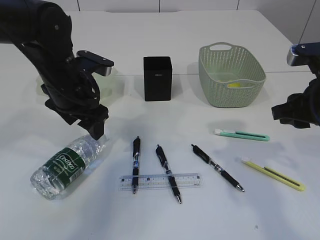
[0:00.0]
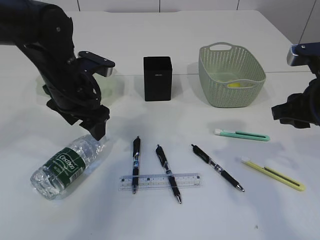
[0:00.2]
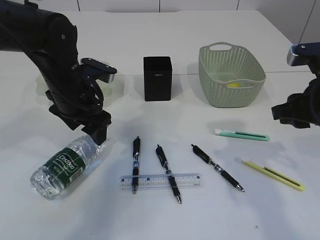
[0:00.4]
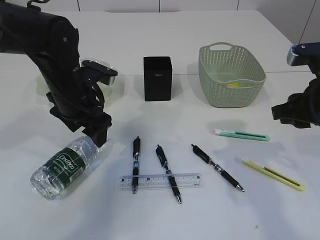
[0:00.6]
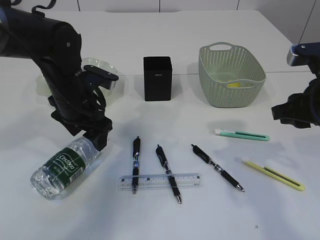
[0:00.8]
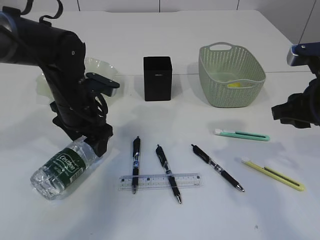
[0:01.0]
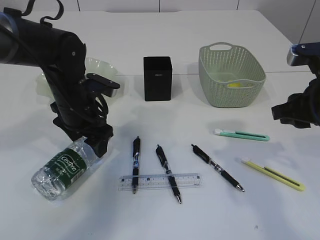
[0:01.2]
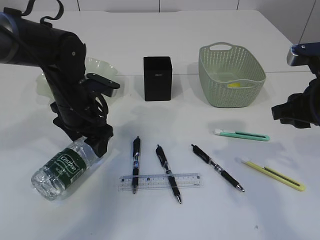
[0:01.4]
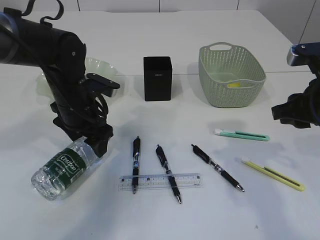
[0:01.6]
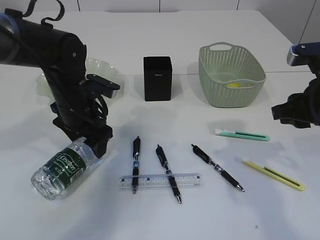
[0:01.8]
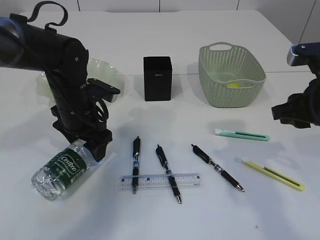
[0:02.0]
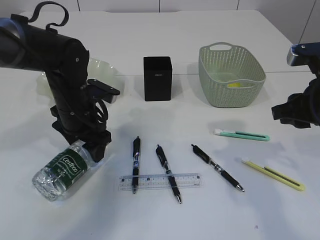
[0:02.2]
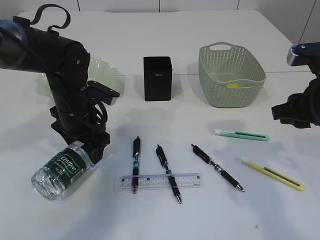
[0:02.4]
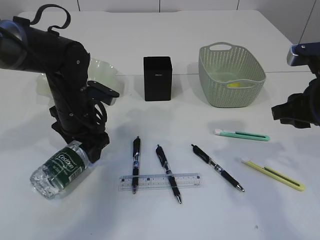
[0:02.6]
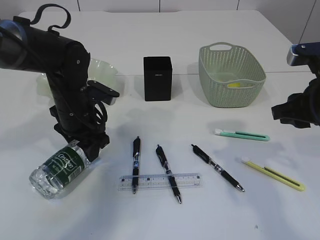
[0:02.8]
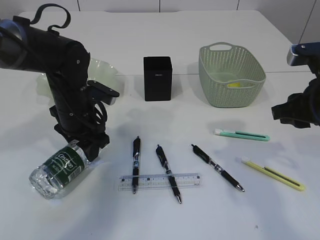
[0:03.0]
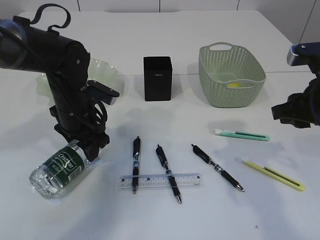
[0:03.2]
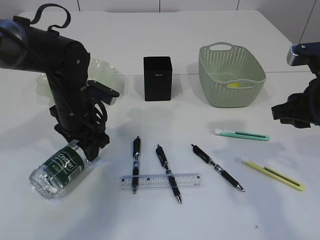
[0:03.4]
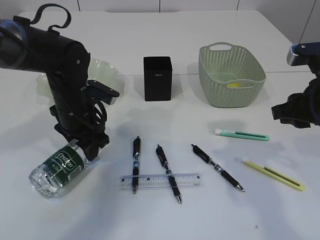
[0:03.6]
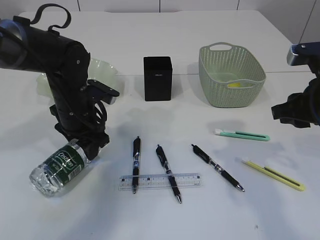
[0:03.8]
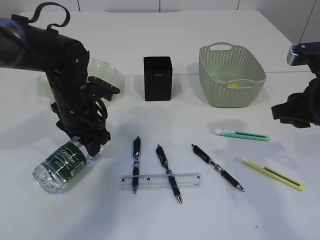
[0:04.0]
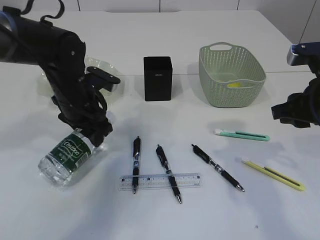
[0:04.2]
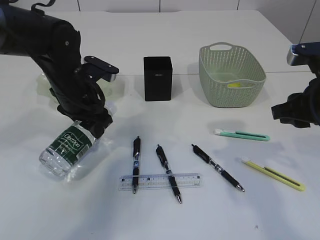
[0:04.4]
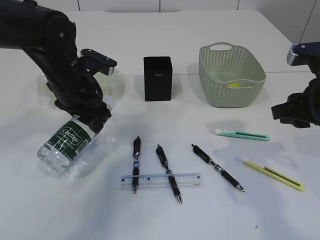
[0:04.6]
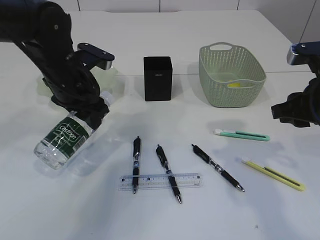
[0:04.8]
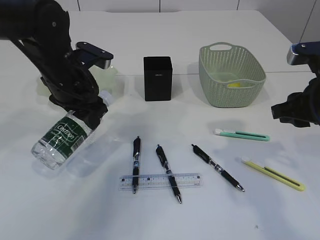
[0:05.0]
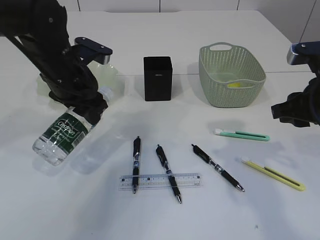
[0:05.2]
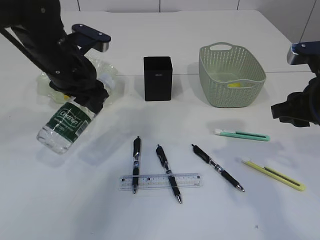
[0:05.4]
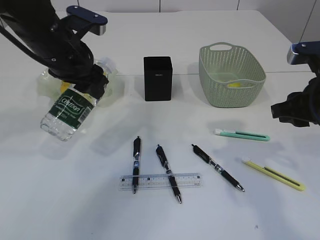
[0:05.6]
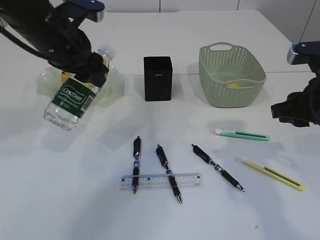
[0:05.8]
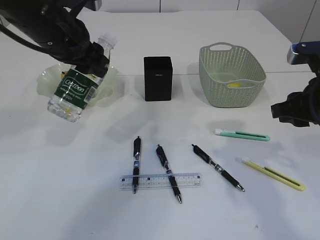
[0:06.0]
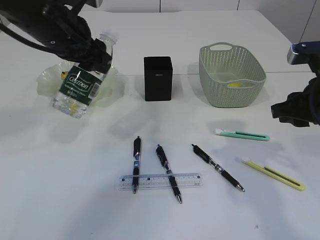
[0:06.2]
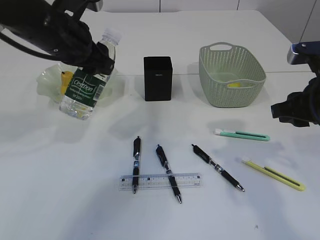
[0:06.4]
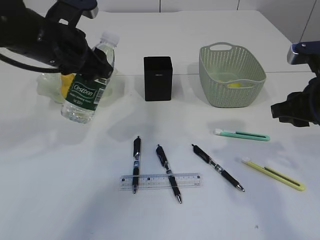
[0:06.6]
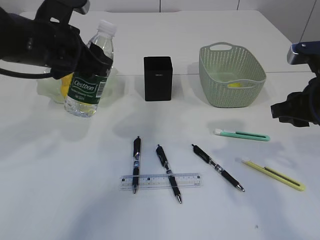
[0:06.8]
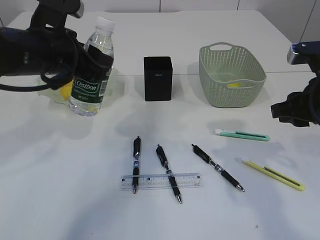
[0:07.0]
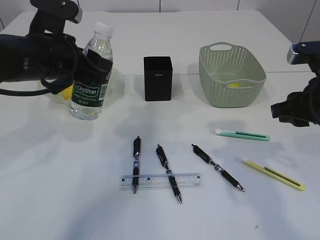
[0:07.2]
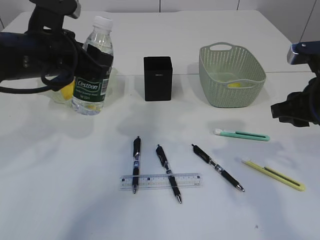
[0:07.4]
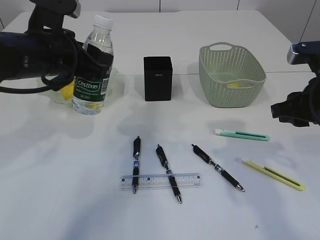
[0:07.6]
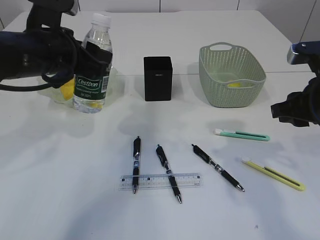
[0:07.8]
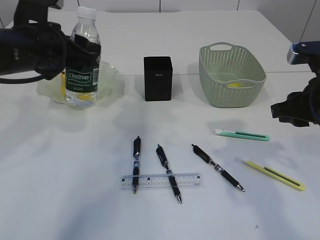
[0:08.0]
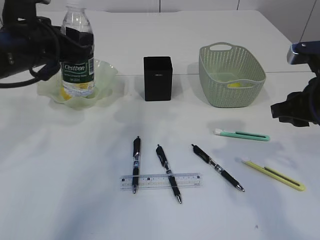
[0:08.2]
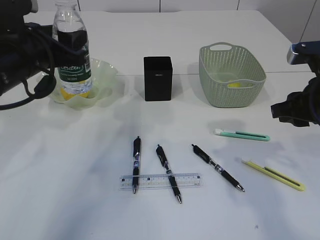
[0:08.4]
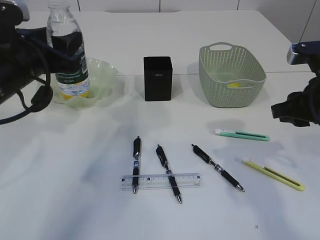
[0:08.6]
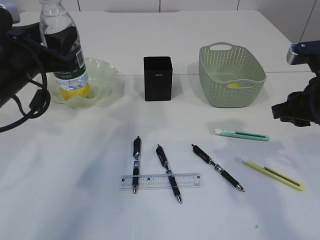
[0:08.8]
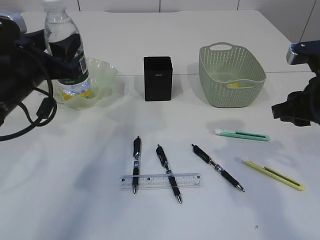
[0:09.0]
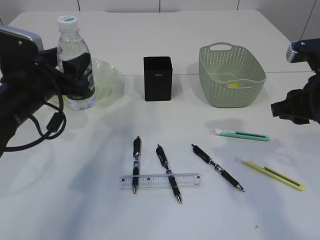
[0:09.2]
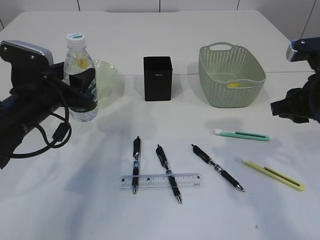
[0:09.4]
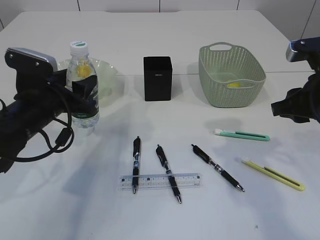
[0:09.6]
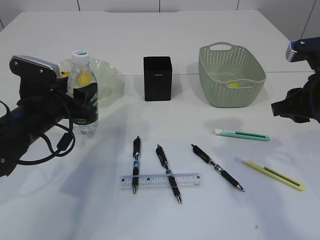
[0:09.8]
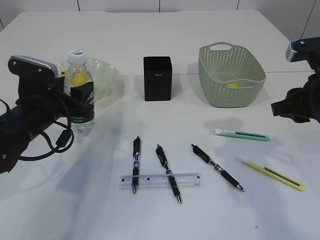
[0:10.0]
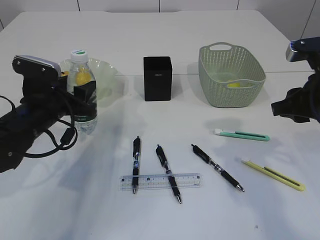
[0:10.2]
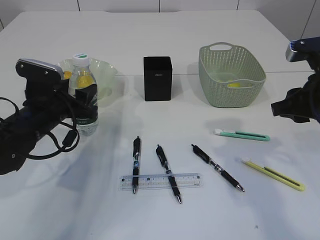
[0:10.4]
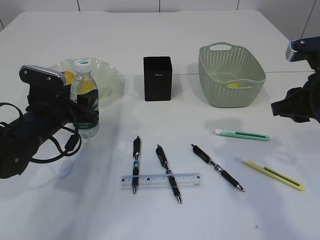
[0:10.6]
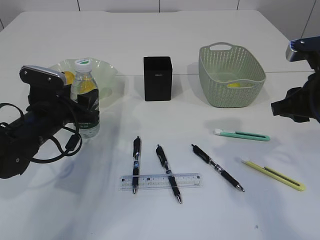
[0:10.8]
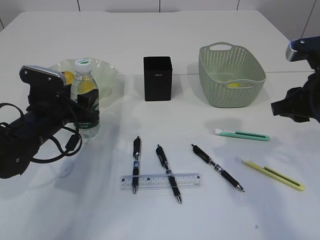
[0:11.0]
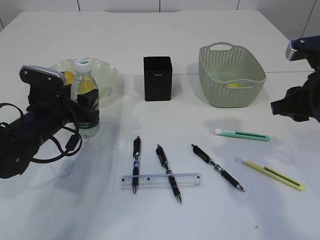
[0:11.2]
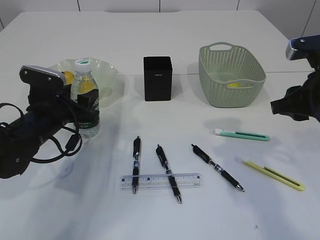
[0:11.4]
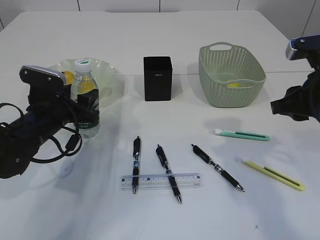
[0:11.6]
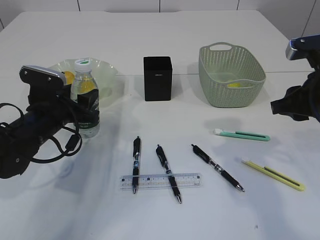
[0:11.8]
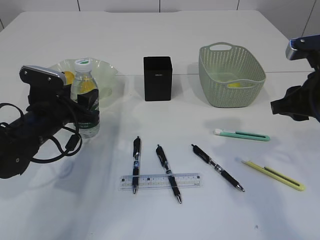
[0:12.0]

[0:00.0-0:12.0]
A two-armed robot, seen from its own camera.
Step, 0:00.0 to 0:05.4: Pick up the bottle with the left arm.
0:00.0 to 0:01.6: The grippers move only a little.
0:01.6 to 0:03.0: The left gripper closes its fingers.
0:03.0 to 0:04.4: The grippers move only a little.
0:04.4 to 0:06.0: The left gripper is displaced upward by approximately 10 cm.
0:07.6 to 0:09.0: The left gripper moves about 5 cm.
0:09.0 to 0:10.4: The left gripper is displaced downward by roughly 10 cm.
0:10.4 to 0:12.0: The grippers stay close to where they were, moving slightly.

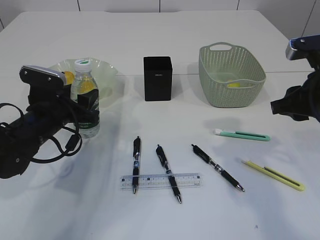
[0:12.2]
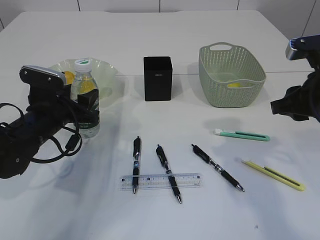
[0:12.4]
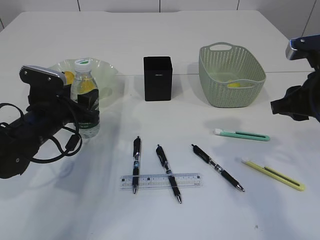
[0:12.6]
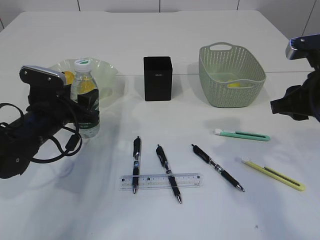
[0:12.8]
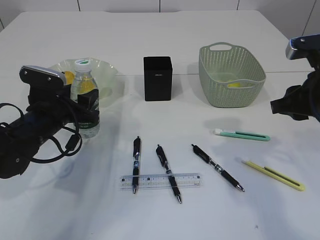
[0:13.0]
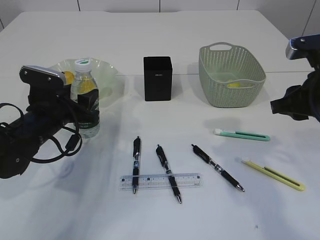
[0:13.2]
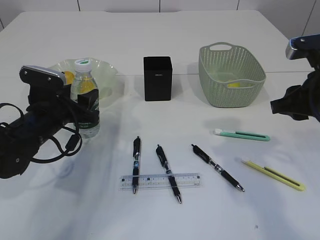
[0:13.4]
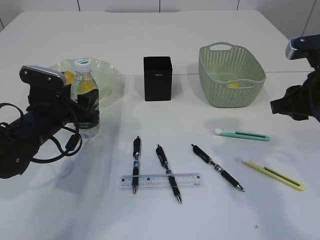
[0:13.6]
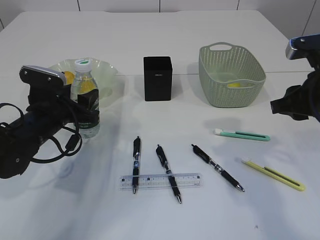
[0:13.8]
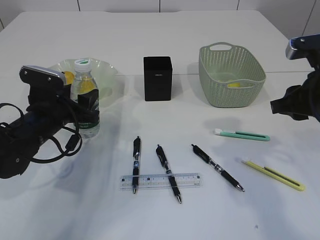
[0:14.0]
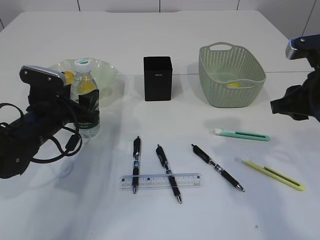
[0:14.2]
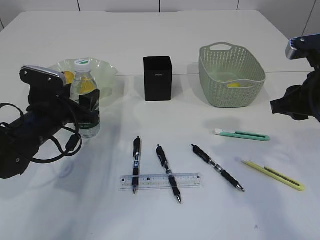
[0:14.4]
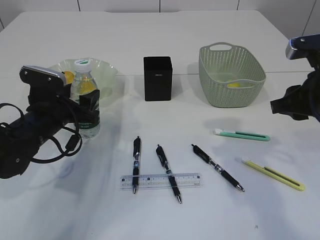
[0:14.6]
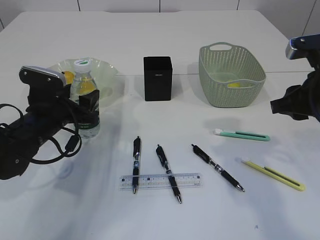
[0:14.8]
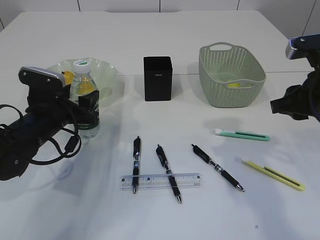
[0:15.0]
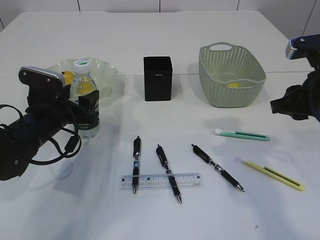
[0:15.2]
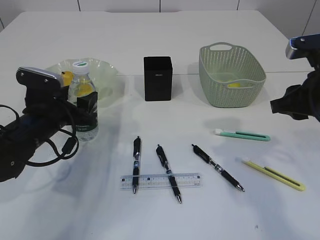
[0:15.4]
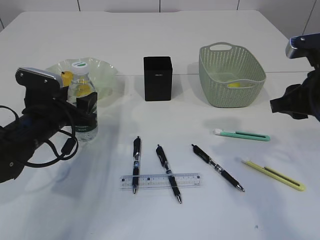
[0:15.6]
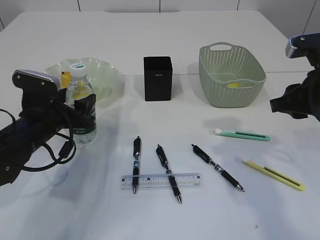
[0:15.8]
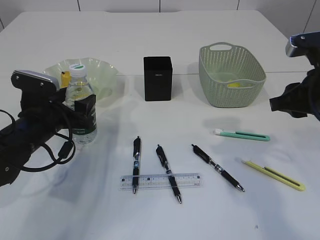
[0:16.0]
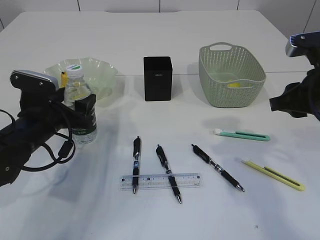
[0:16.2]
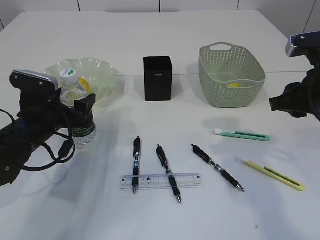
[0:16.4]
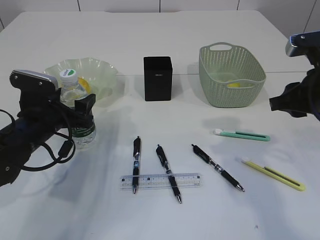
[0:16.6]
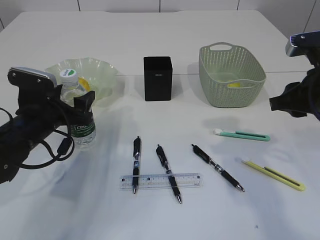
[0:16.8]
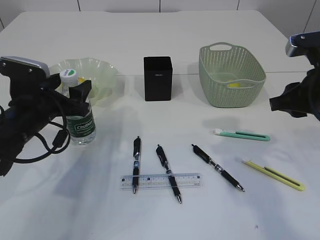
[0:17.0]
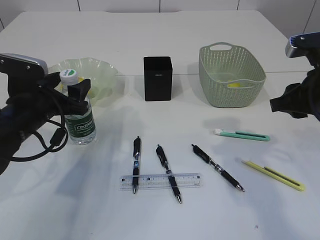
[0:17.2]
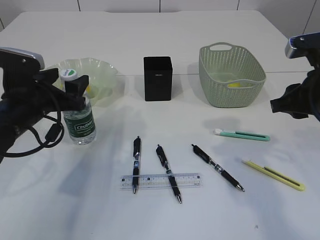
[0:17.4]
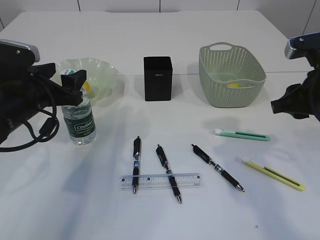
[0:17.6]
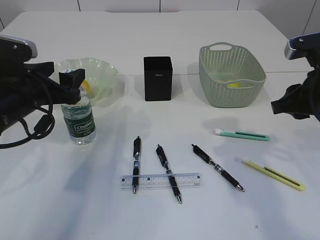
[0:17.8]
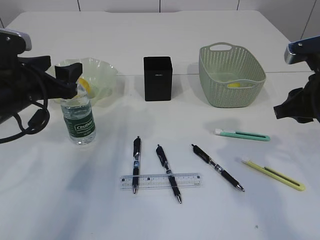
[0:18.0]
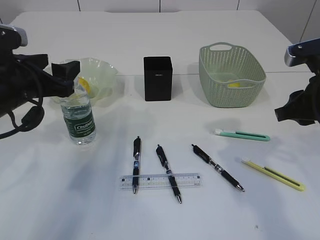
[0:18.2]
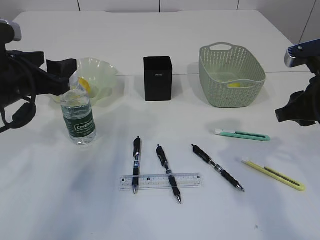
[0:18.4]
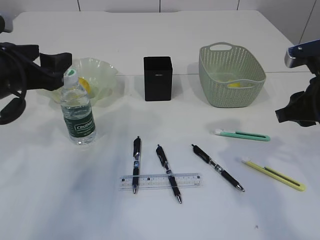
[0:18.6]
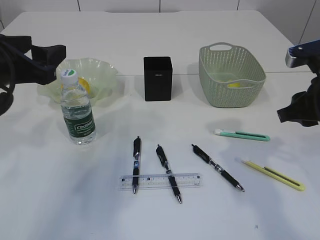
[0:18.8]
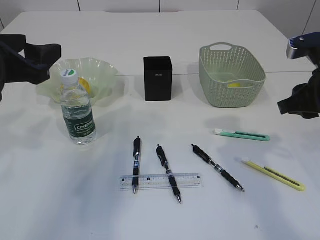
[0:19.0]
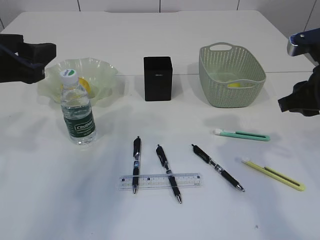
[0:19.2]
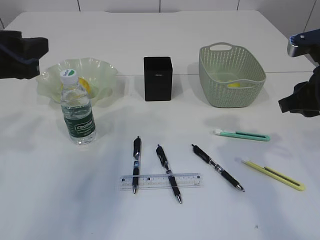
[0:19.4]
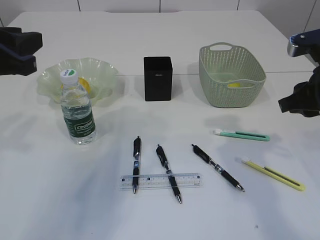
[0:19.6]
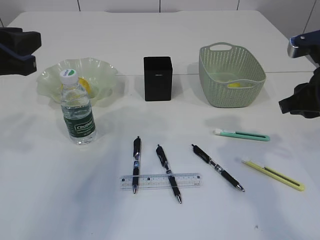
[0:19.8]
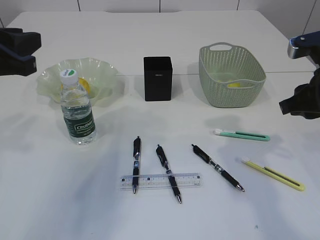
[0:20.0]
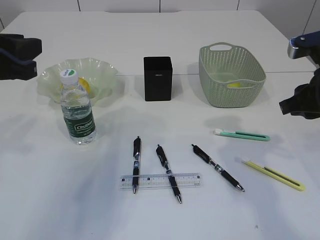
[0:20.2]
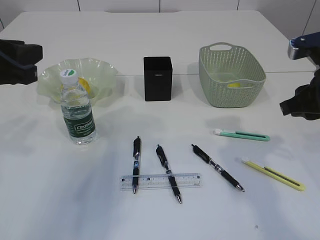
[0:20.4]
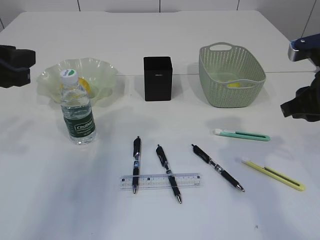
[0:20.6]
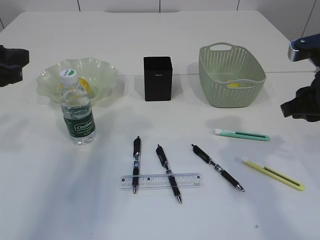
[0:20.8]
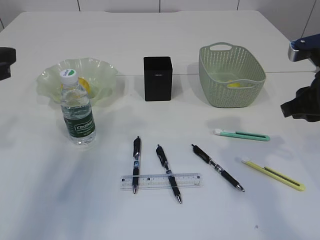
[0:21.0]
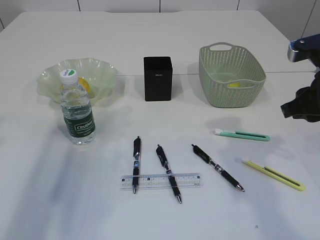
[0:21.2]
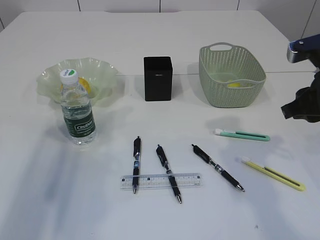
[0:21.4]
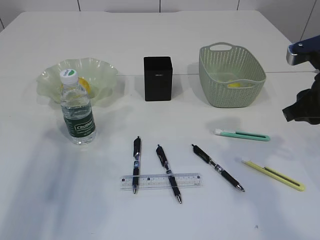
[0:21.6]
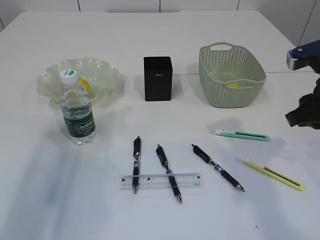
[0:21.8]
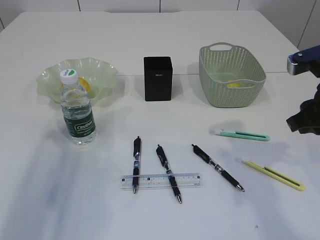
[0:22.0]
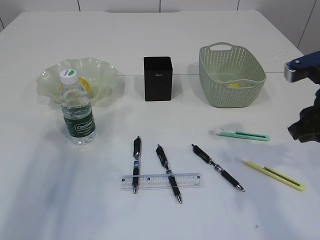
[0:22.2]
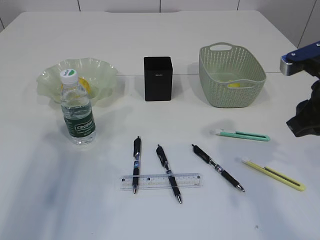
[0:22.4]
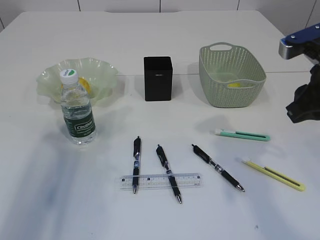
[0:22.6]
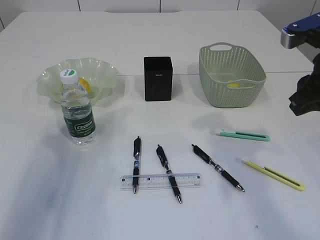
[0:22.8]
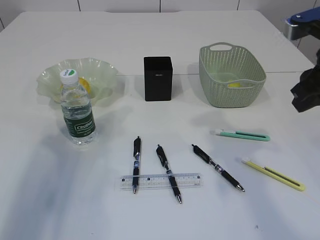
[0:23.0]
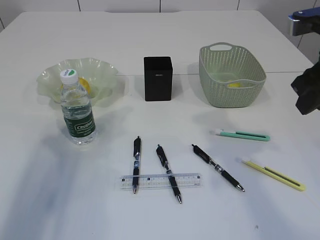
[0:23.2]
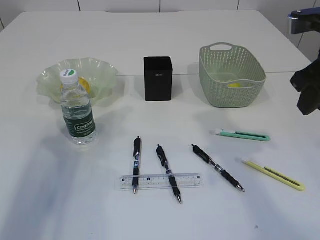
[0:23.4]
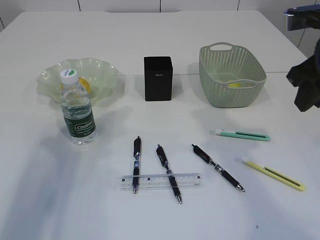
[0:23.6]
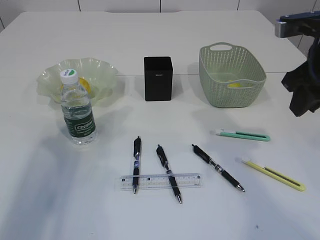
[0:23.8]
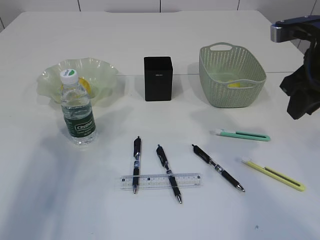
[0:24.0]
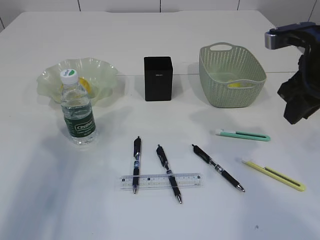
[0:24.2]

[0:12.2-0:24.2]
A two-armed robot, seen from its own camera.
Step, 0:12.2 to 0:18.8: Place the bottle.
0:12.2 to 0:15.2: Neither gripper changes place.
0:15.2 to 0:16.6: The grippers stay close to where they were, moving slightly.
0:16.6 to 0:18.2: The left gripper heads upward, covering roughly 10 cm.
0:18.2 to 0:19.8: The left gripper is displaced upward and backward by some 10 cm, and closes its fingers.
0:19.8 to 0:21.2: The left gripper shifts about 5 cm to the left, and opens.
0:21.2 to 0:22.6: There are only small adjustments of the grippers.
0:22.6 to 0:24.2: The grippers make only small movements.
